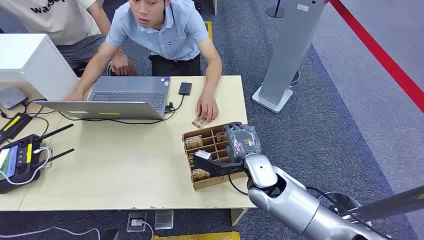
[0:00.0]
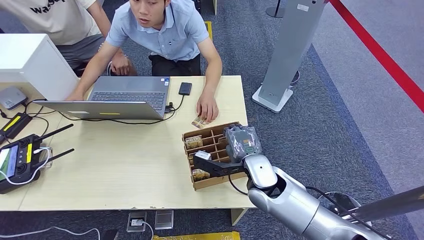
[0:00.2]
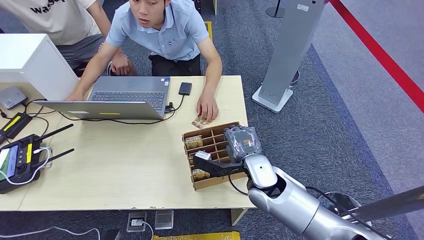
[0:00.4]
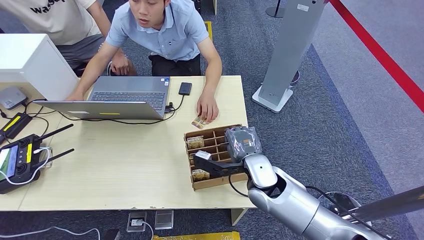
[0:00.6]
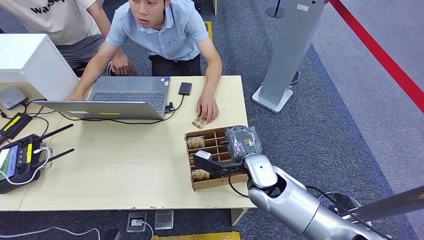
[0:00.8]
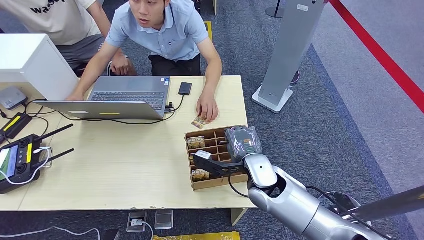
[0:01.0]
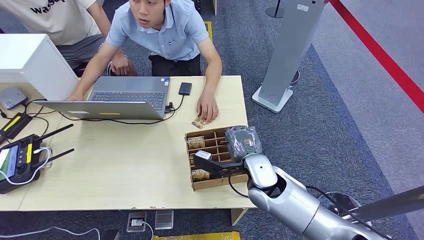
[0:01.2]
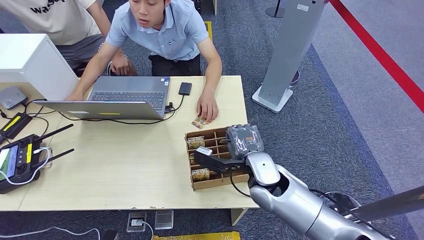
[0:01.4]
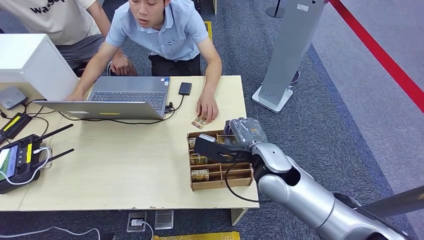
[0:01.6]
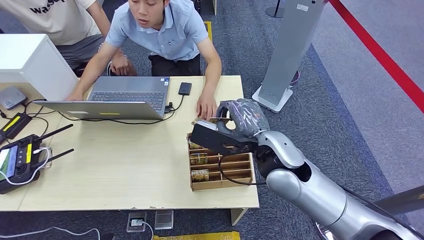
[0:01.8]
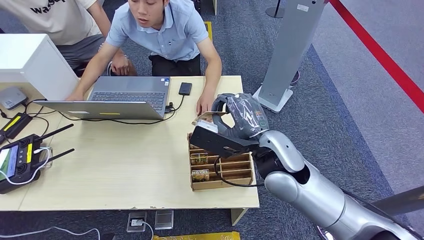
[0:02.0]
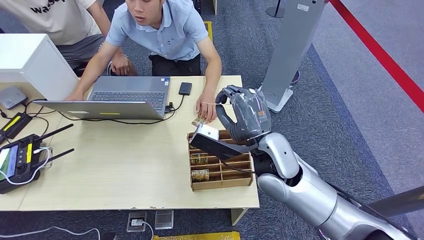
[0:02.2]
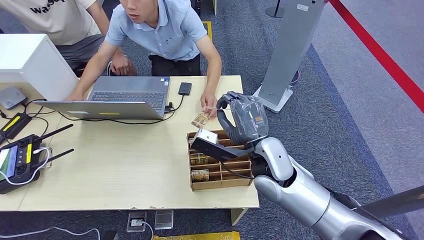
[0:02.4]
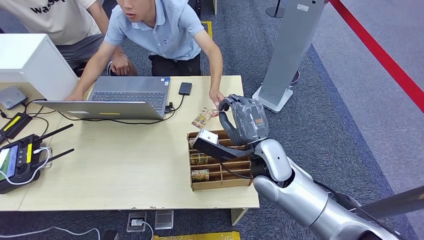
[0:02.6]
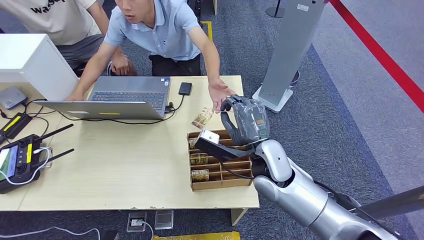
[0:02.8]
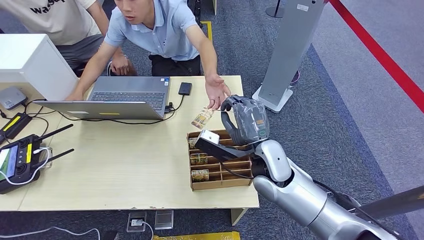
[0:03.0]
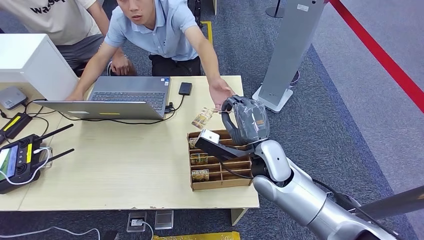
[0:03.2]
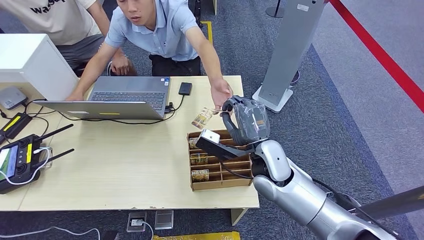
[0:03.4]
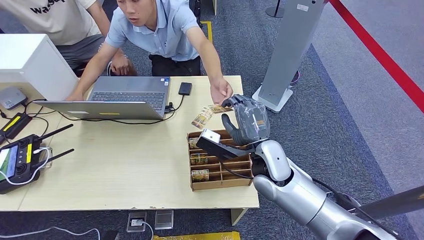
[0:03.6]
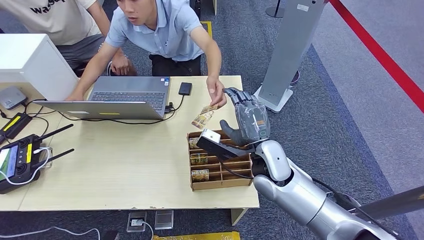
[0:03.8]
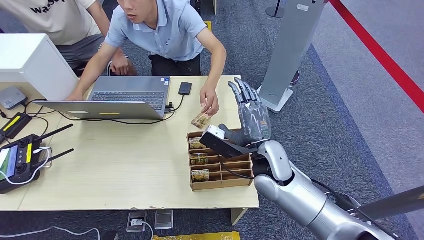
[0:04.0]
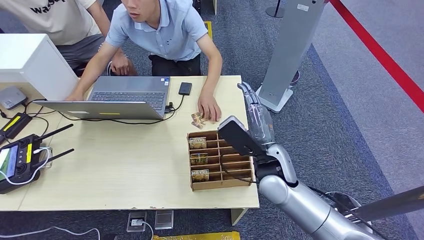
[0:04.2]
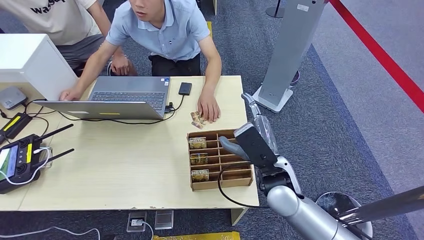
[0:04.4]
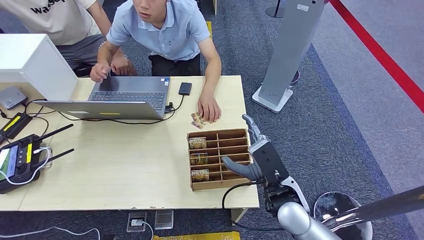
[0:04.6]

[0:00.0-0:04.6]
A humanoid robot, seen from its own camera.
Step, 0:00.0 to 0:02.0: Pick up the key card from the card box.
Step, 0:02.4 to 0:04.6: Hand the key card to the target.
0:03.0 to 0:04.6: The right hand goes roughly 5 cm backward.

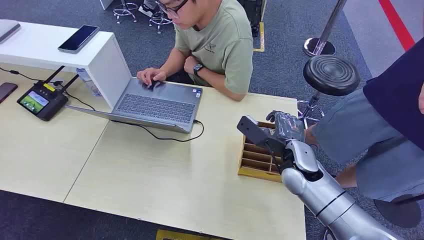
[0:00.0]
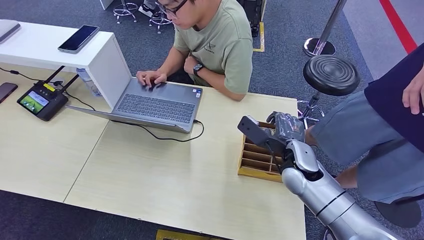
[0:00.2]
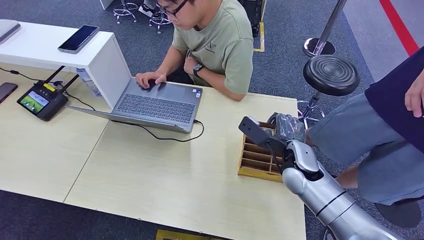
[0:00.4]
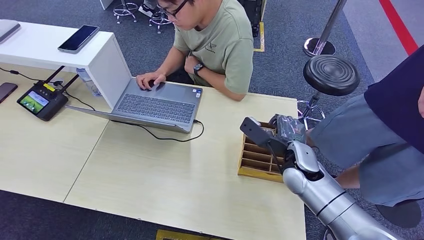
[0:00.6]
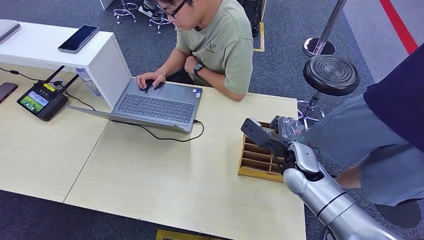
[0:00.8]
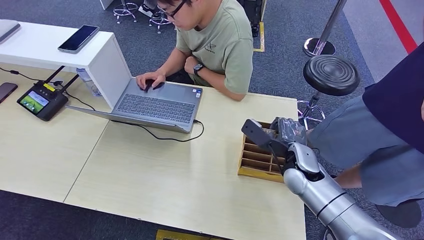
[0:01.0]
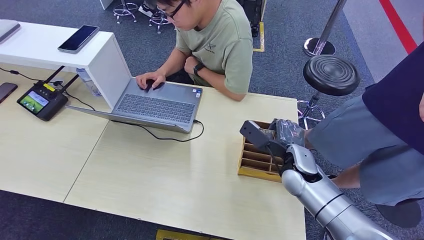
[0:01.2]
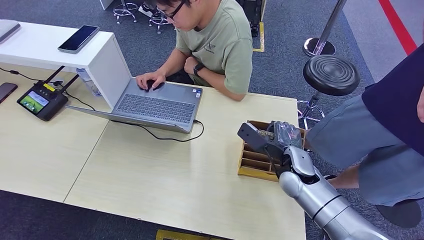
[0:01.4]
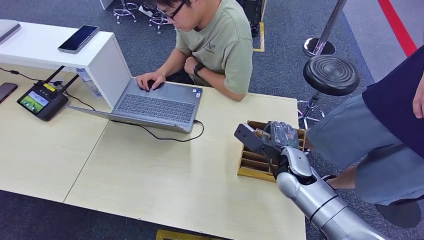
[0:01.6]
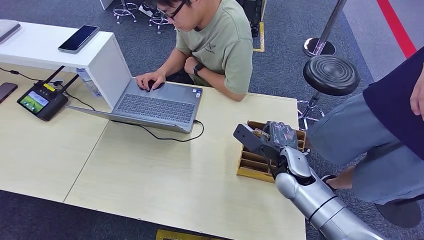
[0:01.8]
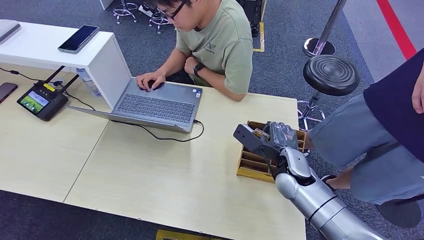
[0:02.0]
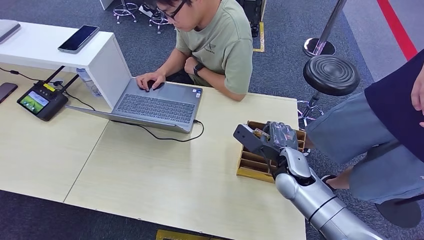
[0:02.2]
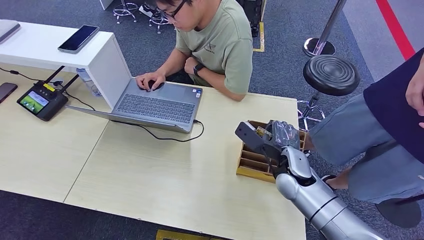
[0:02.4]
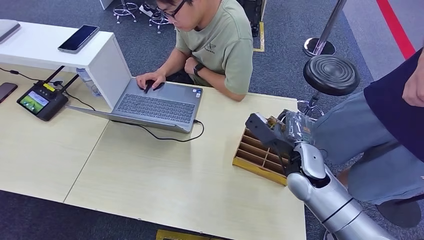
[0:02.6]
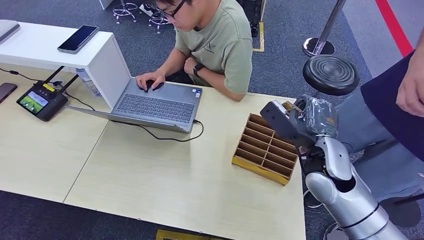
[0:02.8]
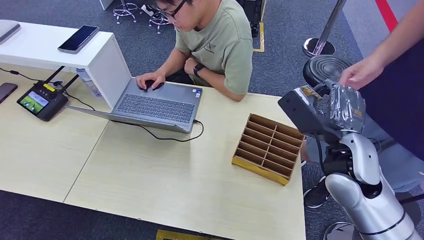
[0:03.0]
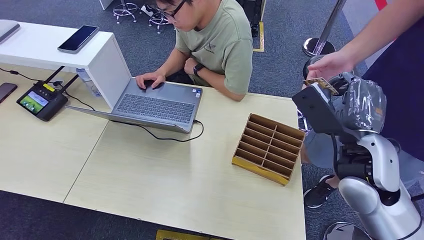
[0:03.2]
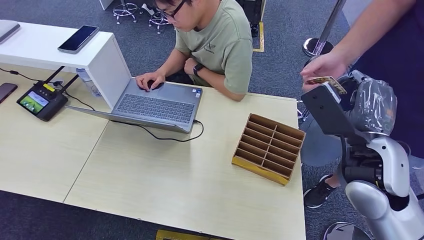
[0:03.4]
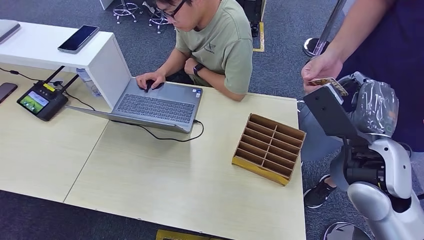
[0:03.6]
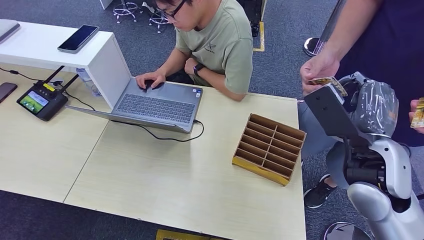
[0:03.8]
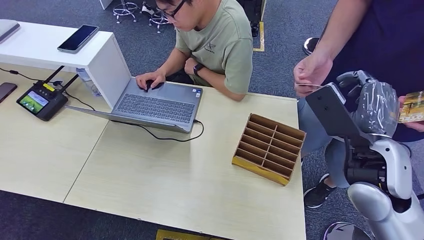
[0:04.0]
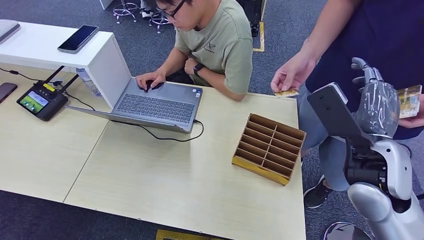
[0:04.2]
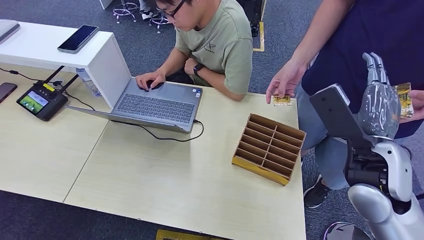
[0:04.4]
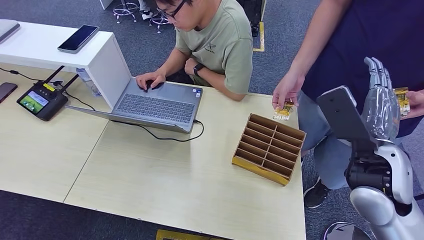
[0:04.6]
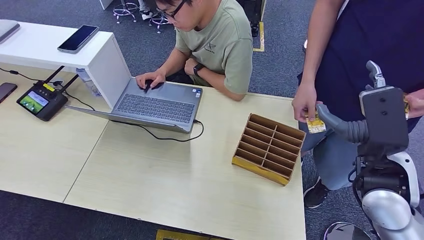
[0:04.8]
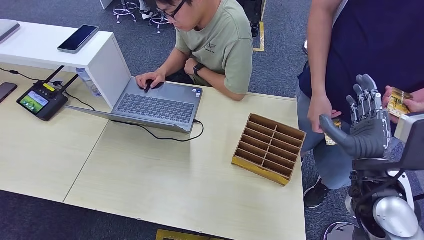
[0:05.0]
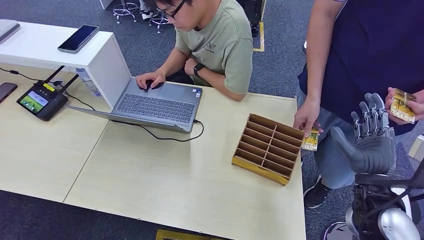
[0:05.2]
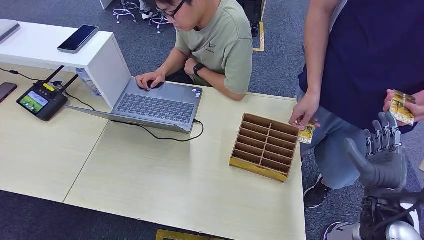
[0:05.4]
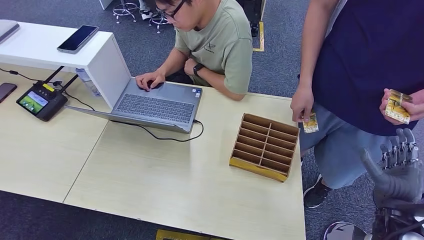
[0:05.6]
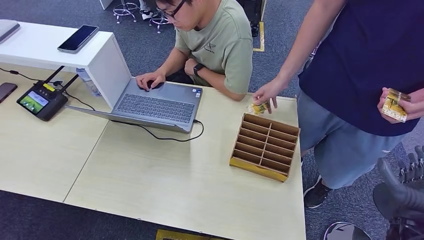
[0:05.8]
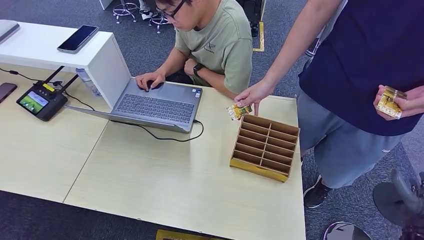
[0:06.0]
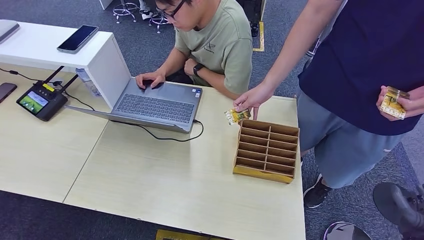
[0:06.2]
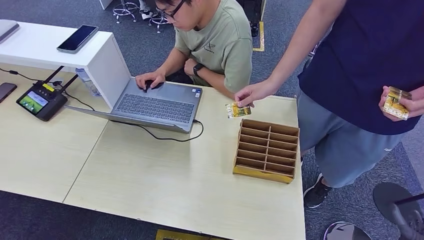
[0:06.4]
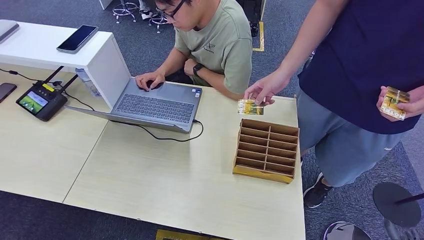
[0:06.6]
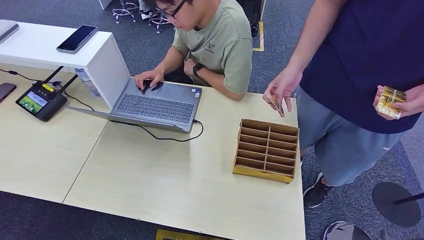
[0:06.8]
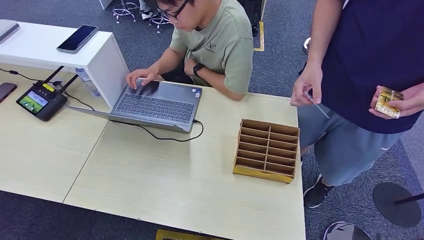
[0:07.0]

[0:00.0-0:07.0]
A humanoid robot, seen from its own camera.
Step, 0:00.0 to 0:02.6: Pick up the key card from the card box.
Step, 0:02.8 to 0:07.0: Hand the key card to the target.
0:01.4 to 0:02.8: The right hand travels upward by roughly 10 cm.
0:04.2 to 0:05.6: The right hand heads downward, to the right and backward, covering approximately 15 cm.
0:05.6 to 0:07.0: The right hand is displaced downward and to the right by about 30 cm.
